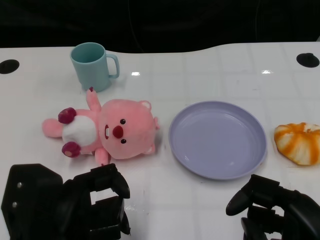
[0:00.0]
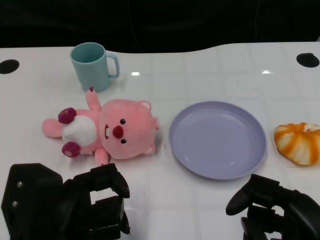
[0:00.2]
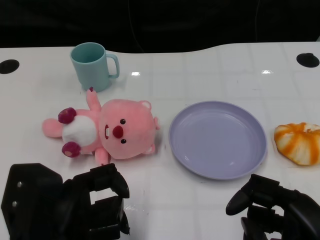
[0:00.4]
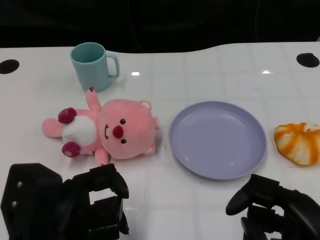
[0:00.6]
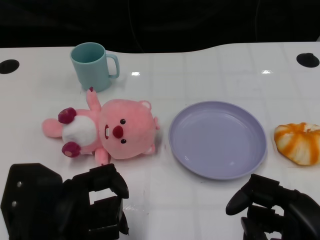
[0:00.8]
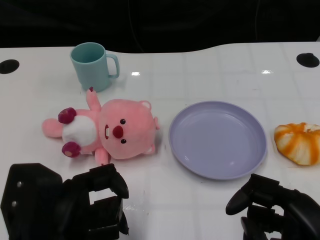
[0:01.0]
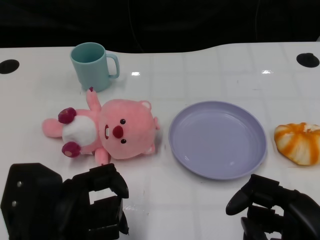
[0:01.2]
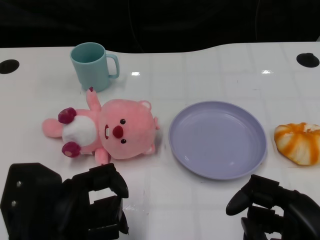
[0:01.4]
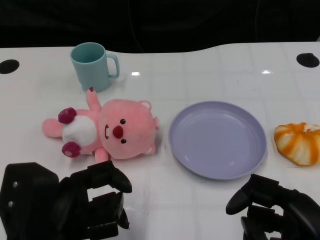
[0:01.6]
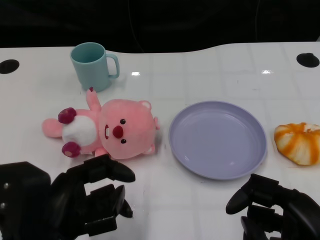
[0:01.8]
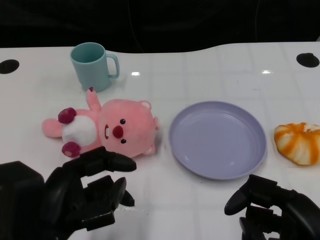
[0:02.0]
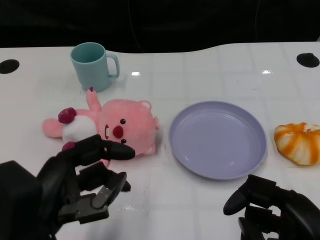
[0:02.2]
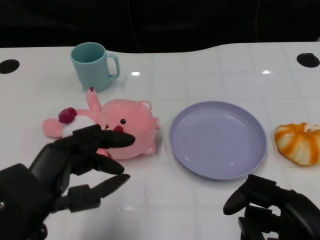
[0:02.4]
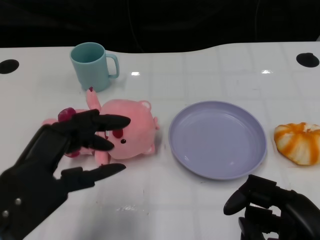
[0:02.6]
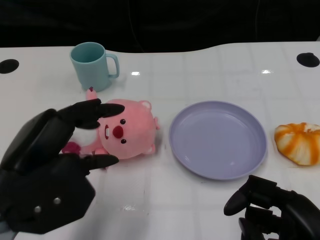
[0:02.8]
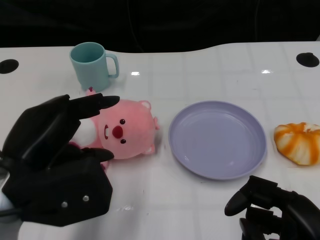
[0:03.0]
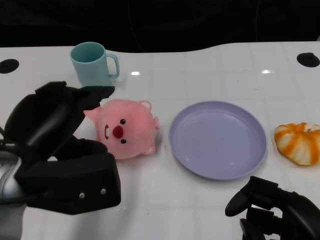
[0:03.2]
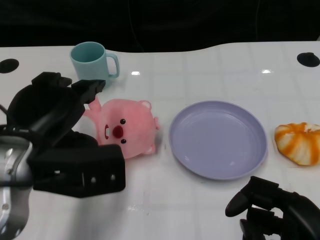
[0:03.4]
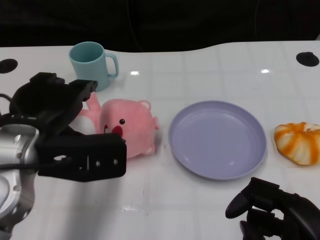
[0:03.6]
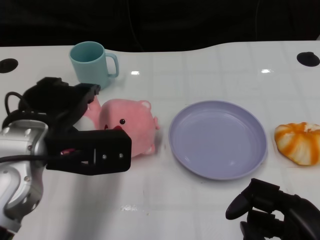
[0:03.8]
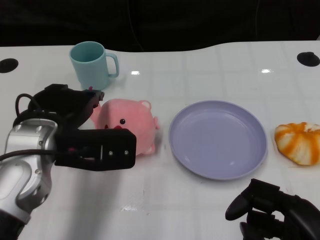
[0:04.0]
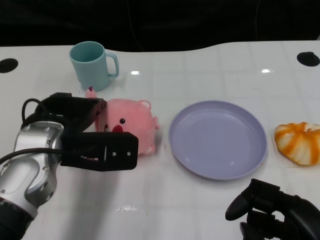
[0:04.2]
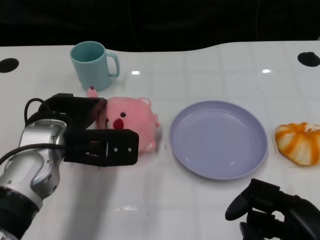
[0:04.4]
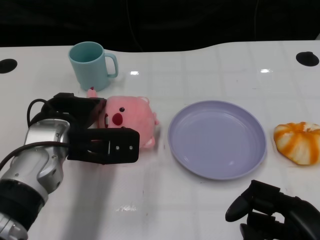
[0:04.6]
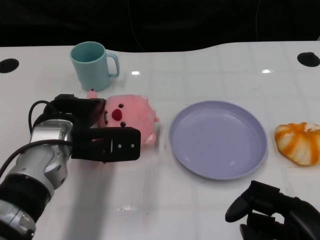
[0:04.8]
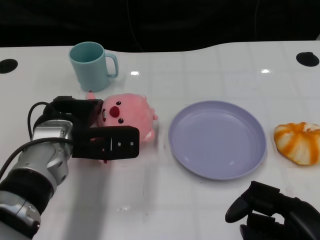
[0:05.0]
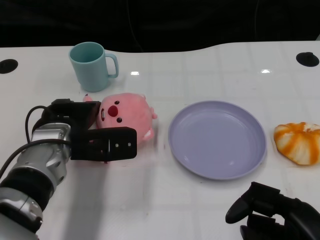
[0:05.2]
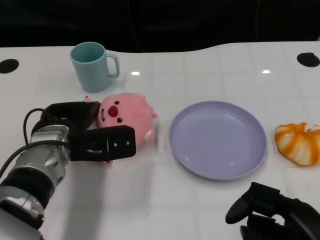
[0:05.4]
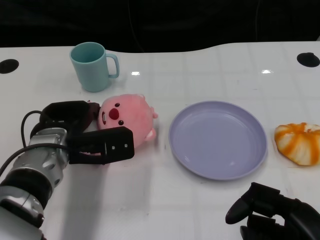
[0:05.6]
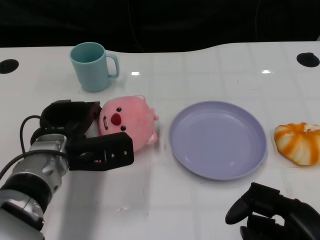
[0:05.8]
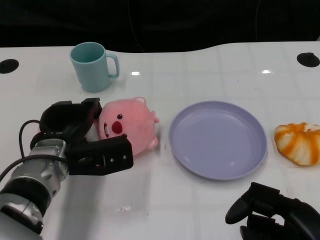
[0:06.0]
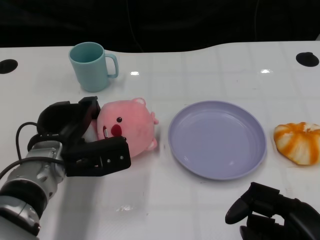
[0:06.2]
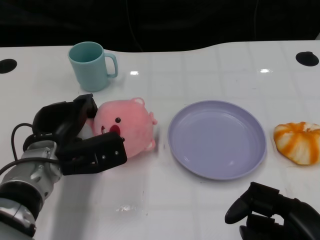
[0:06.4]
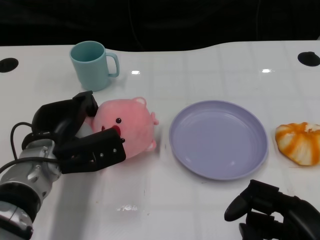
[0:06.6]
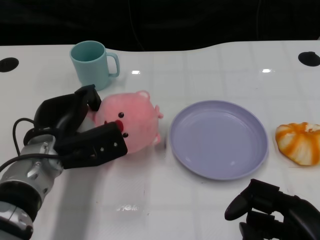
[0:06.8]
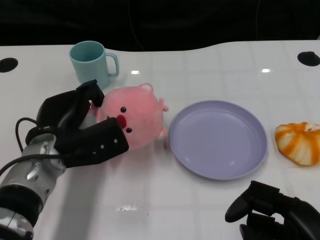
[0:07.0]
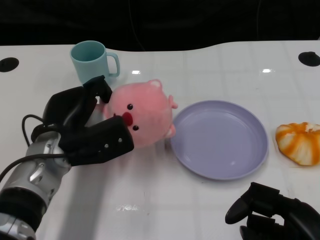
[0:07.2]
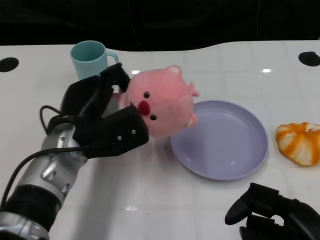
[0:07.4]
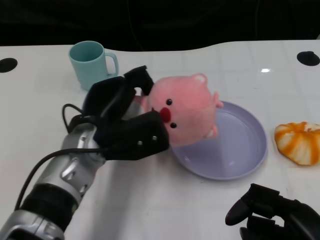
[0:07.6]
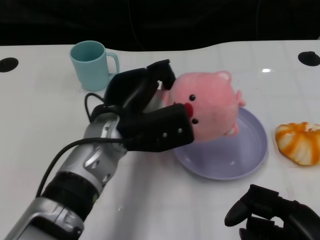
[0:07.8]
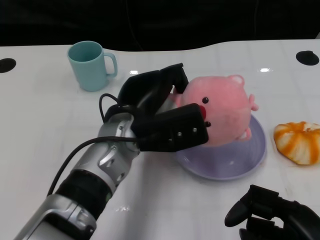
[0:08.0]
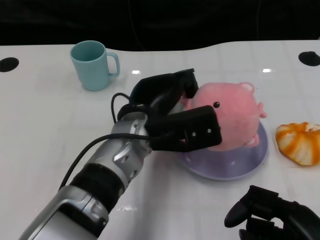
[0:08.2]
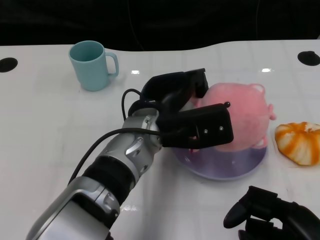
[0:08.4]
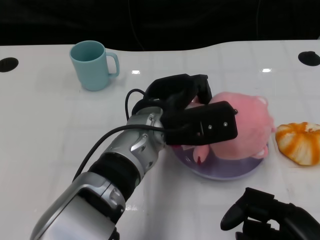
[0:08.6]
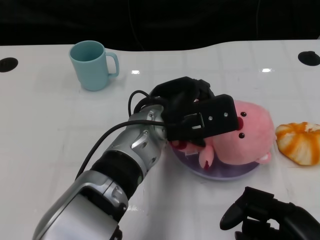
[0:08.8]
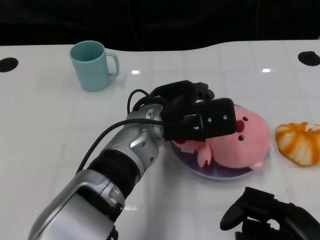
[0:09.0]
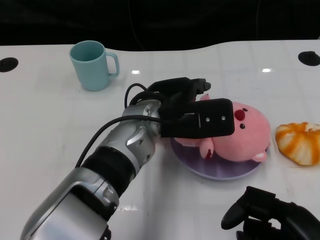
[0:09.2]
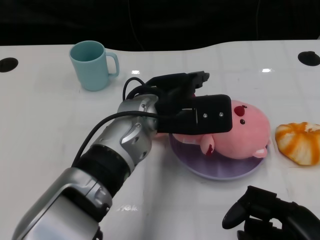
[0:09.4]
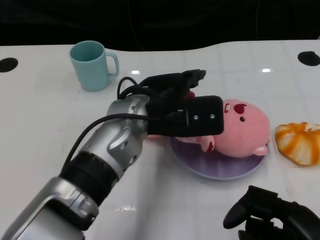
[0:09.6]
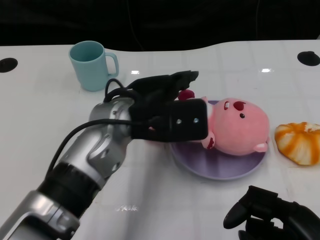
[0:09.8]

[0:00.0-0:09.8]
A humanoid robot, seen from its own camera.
Task of the whole recording: Pick up the doll on one side of the plate and place it into the plate.
Step, 0:01.6 to 0:06.8: Grasp the pink doll with the left gripper.
Step, 0:07.0 to 0:09.4: Place the pink doll into the plate with the left gripper.
0:01.4 to 0:02.8: The left hand goes some 5 cm upward.
0:02.8 to 0:04.2: The left hand is displaced forward by roughly 10 cm.
0:04.2 to 0:05.6: The left hand is displaced downward by approximately 5 cm.
0:07.0 to 0:08.4: The left hand travels to the right by about 15 cm.
0:08.4 to 0:09.8: The left hand changes place by approximately 5 cm.

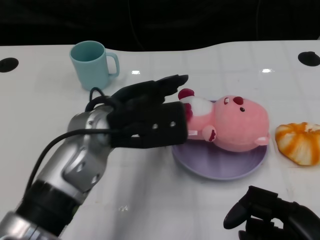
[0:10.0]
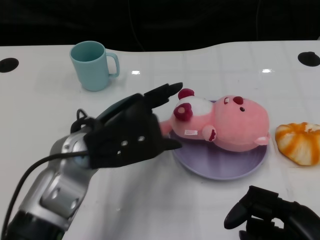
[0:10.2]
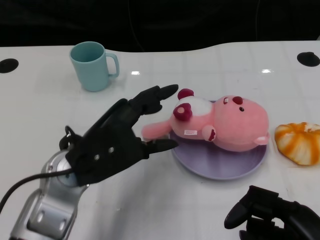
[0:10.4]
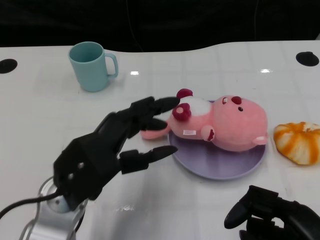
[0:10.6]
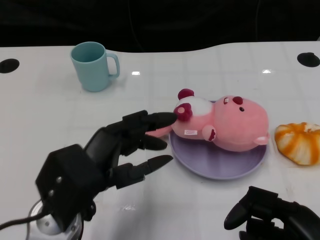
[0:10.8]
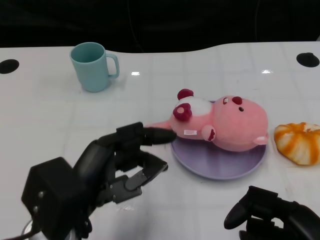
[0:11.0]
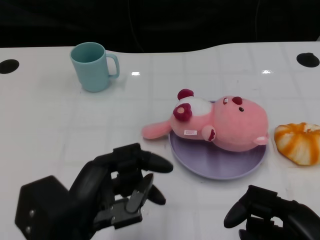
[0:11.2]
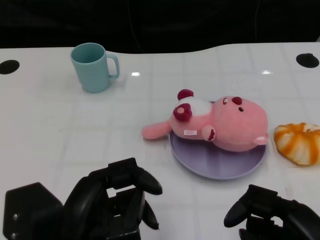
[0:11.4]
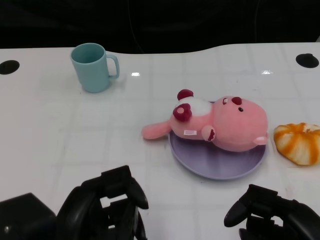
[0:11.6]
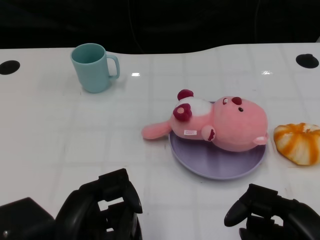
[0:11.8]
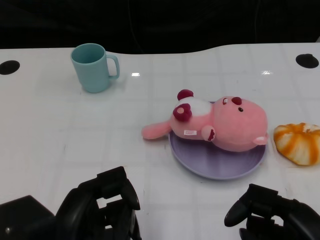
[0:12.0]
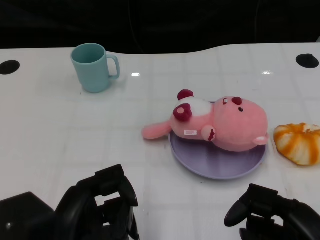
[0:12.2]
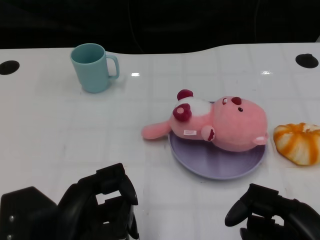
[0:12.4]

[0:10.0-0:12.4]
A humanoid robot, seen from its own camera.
Task of the whole recording: Pick up the doll on one side of the plate and place it into the plate.
0:10.0 to 0:11.2: The left hand moves backward and to the left, some 15 cm.
0:11.2 to 0:12.4: The hands move only a little.

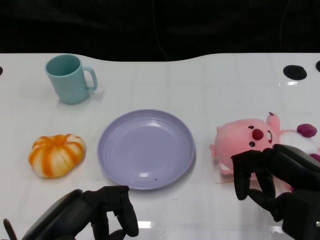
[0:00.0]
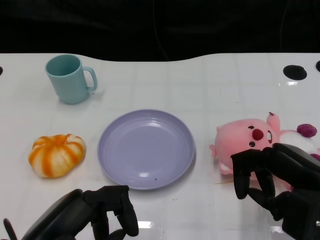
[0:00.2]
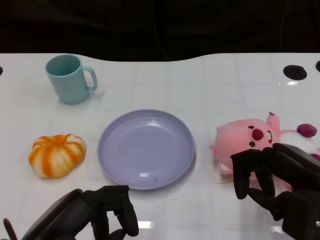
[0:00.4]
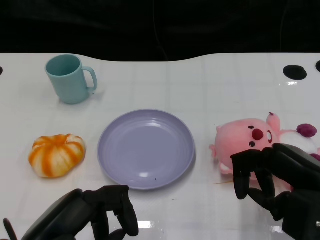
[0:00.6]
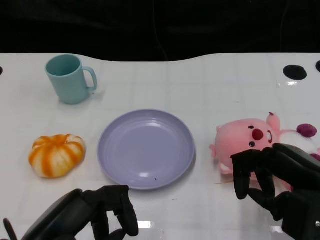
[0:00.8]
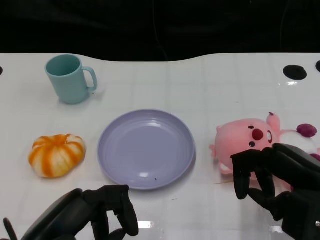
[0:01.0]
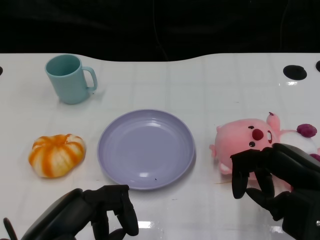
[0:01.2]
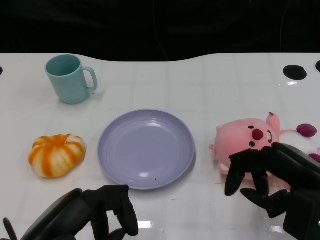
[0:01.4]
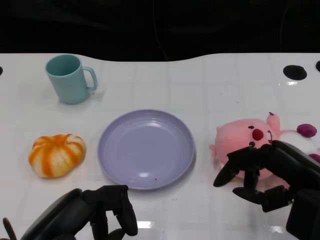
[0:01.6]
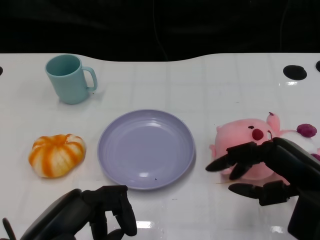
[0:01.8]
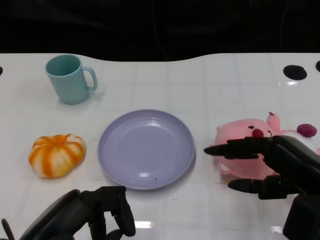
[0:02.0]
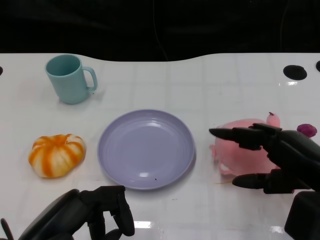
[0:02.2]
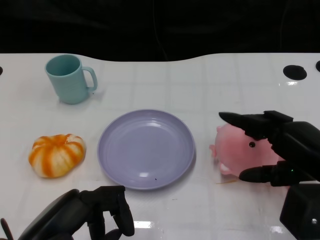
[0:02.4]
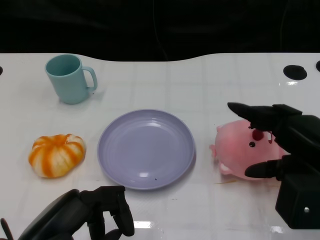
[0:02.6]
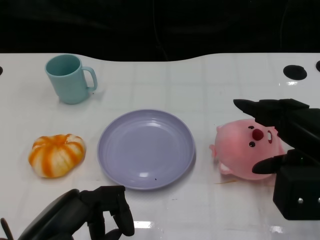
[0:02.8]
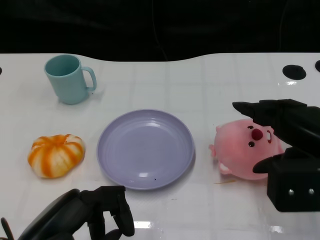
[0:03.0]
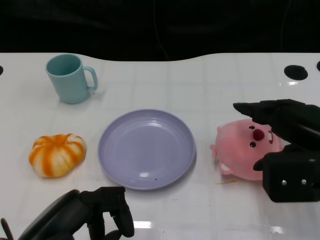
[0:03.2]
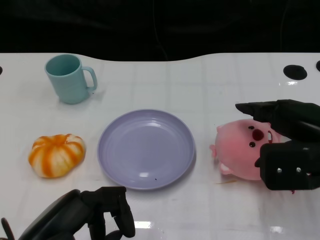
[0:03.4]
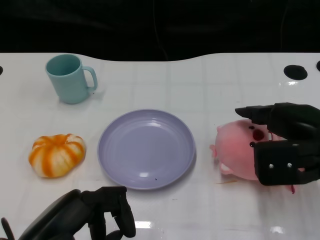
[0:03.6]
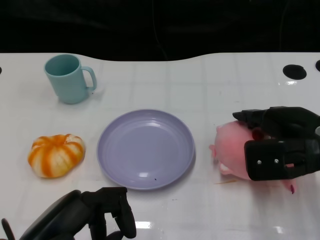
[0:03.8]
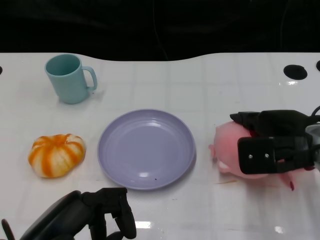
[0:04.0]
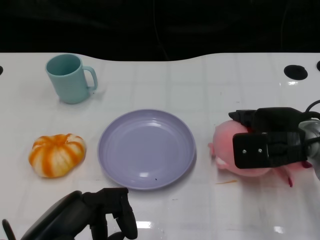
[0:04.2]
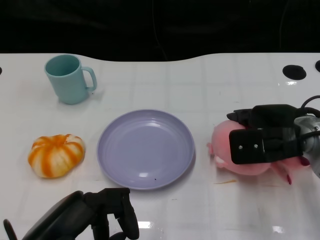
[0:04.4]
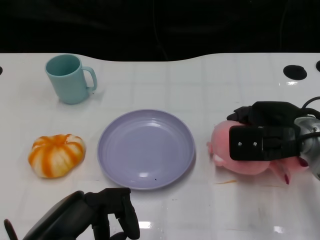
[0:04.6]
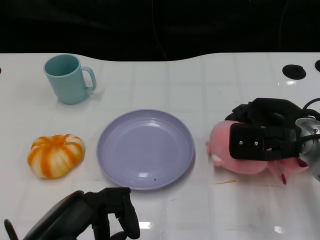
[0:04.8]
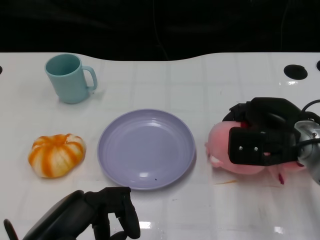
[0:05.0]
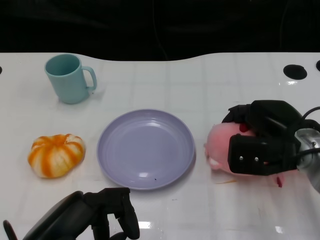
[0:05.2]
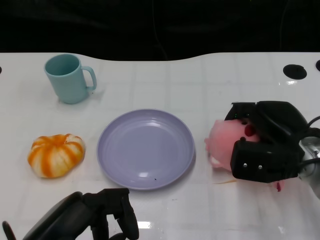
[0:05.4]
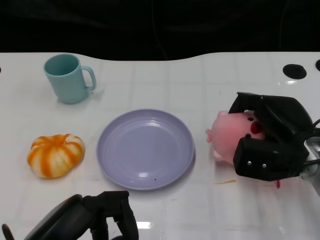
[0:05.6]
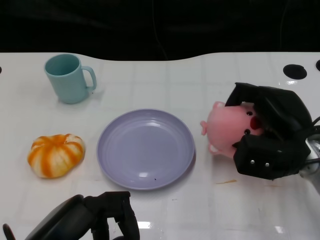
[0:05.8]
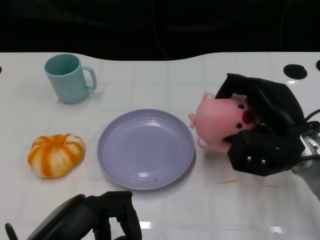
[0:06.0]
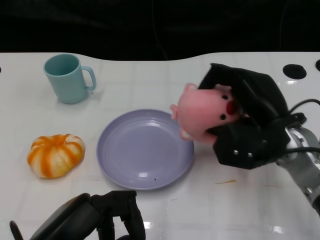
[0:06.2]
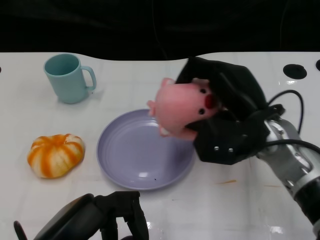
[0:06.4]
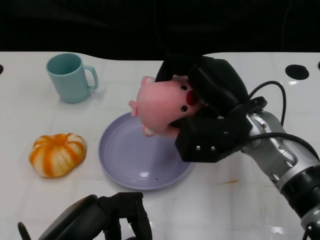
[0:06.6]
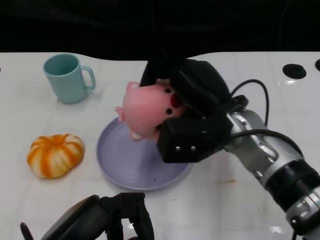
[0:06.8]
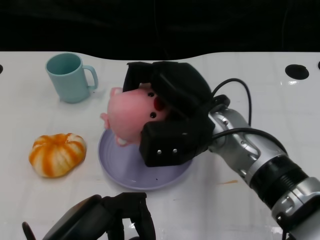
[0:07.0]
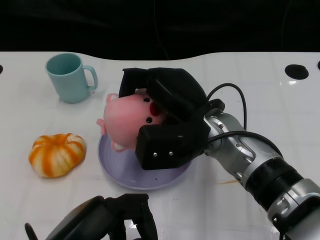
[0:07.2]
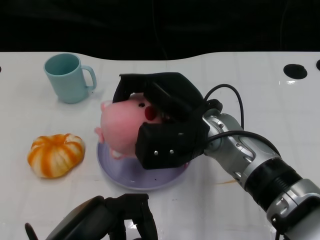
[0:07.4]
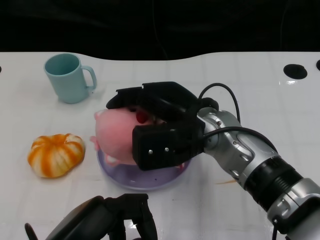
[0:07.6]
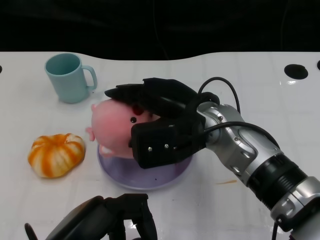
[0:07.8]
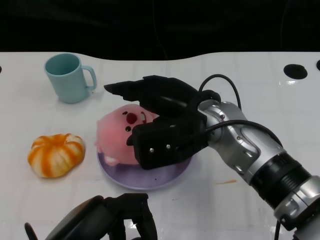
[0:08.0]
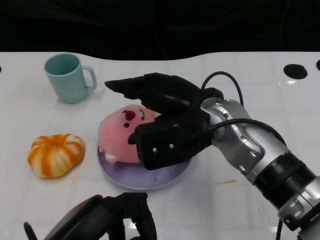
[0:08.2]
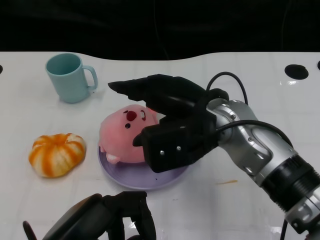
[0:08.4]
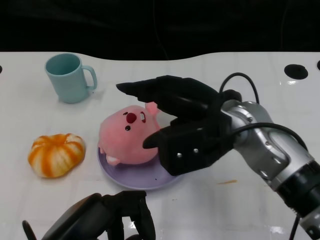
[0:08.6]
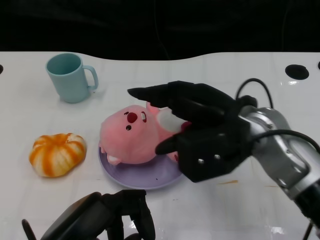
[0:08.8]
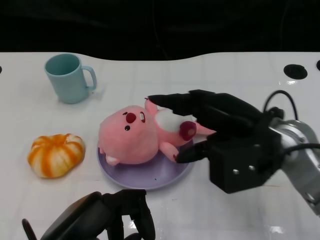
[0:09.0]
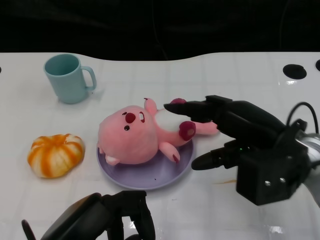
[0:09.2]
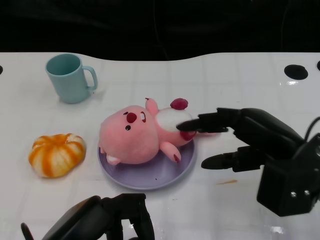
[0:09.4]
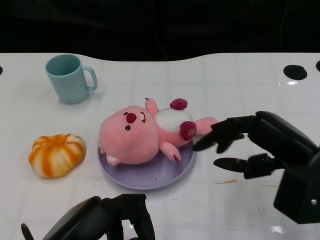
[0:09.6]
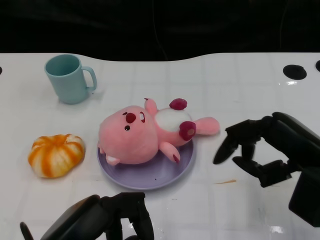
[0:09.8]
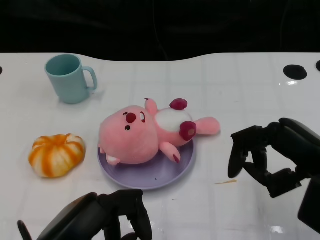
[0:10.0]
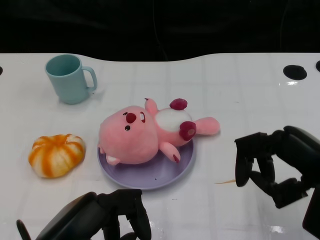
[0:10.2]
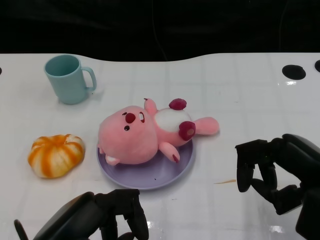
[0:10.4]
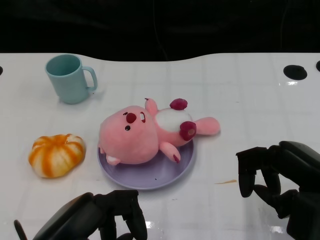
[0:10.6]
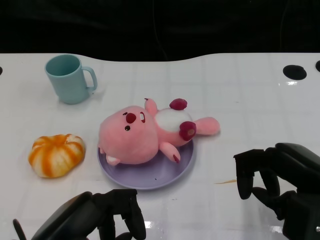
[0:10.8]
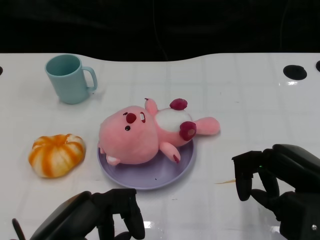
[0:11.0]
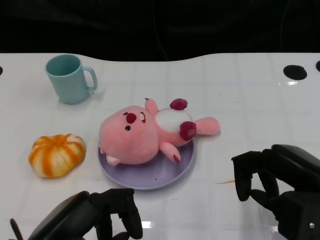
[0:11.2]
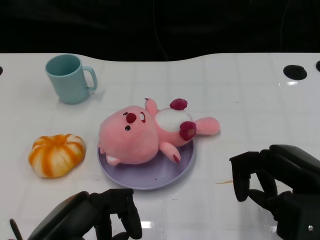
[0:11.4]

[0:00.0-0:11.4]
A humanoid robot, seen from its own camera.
Task of the whole recording: Pick up the doll on the other side of the plate and place it into the plate.
Step, 0:01.2 to 0:06.0: Grasp the pink doll with the right gripper.
Step, 0:06.2 to 0:08.2: Place the pink doll into the plate with the right gripper.
0:02.8 to 0:04.2: The right hand moves forward, some 10 cm.
0:05.6 to 0:07.2: The right hand shifts approximately 15 cm to the left.
0:08.6 to 0:10.0: The right hand is displaced to the right and backward by about 15 cm.
0:10.0 to 0:11.4: The hands move only a little.
